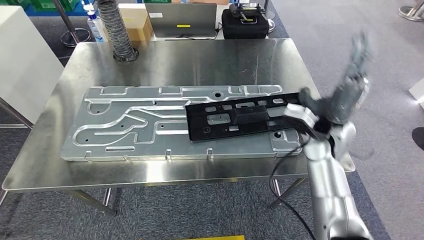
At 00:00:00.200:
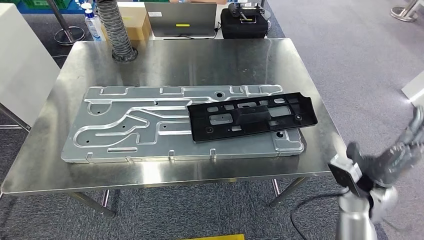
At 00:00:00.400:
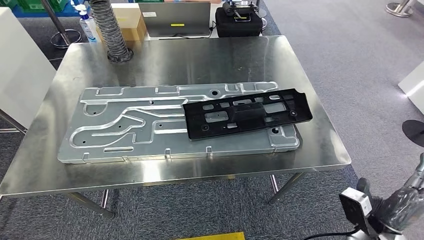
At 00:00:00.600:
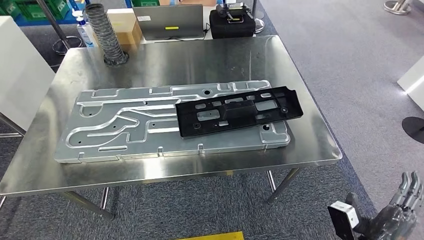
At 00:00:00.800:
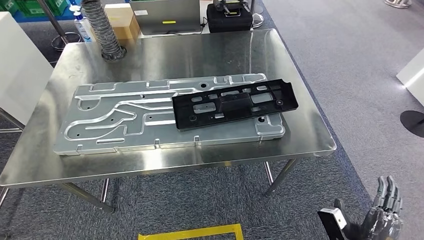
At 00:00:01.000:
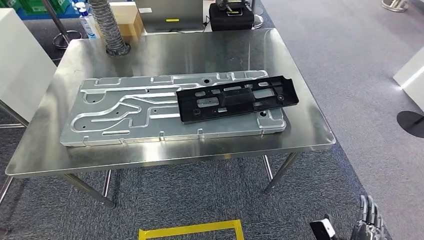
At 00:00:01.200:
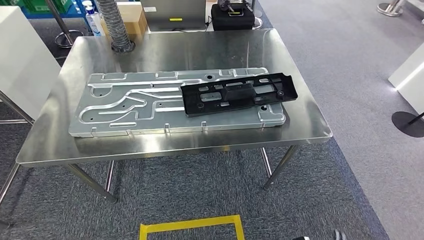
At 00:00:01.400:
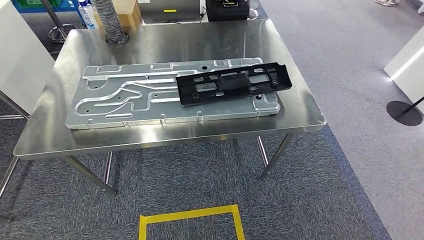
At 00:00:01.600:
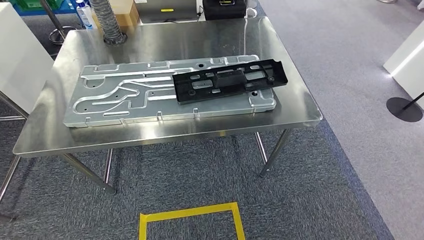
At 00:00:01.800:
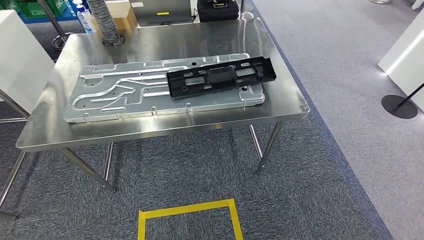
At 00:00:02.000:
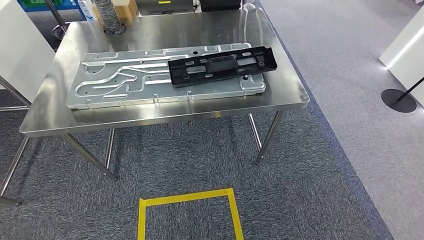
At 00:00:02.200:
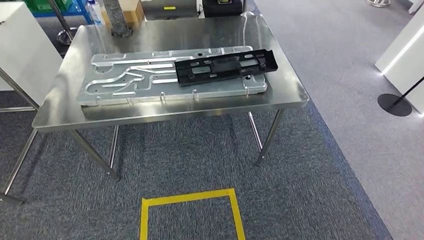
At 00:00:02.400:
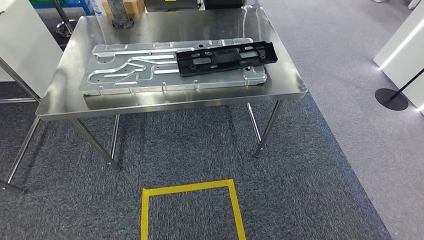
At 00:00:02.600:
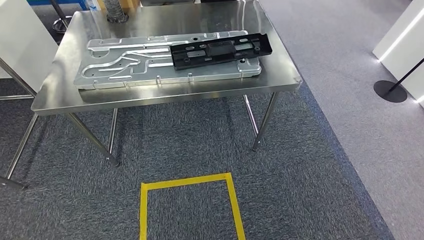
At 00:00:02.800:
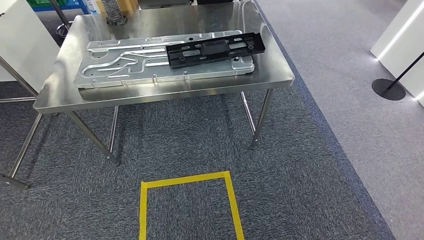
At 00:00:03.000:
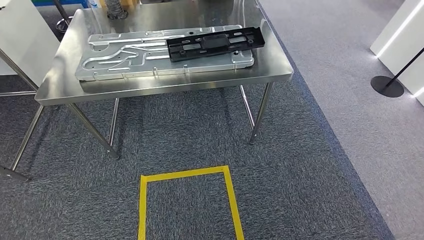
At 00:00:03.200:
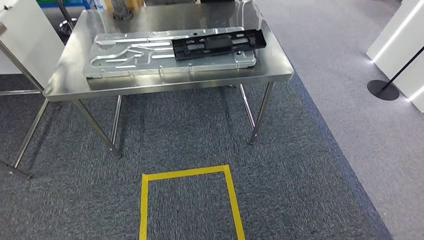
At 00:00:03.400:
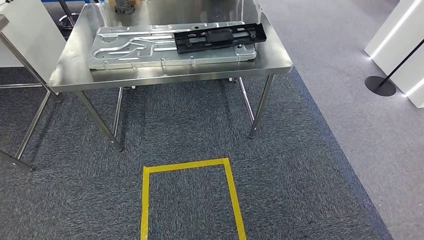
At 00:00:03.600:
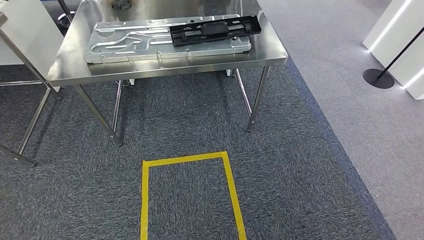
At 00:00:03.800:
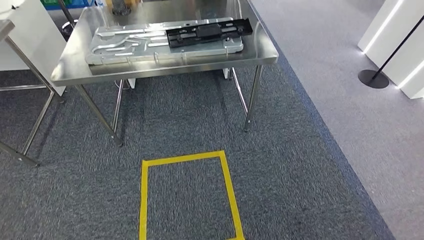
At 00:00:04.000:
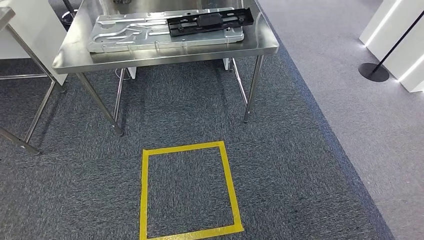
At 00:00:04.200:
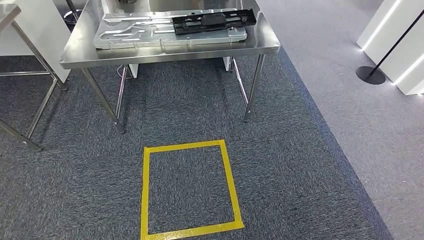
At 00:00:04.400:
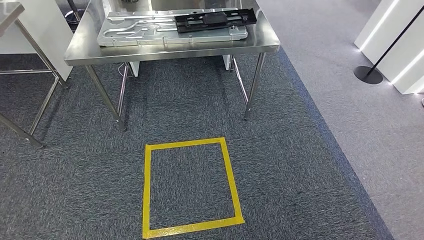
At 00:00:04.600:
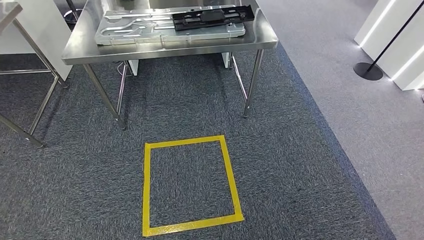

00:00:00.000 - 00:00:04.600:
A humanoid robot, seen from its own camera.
Step, 00:00:02.400 - 00:00:04.600: Return to the initial position at the shelf.
